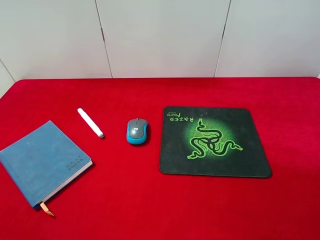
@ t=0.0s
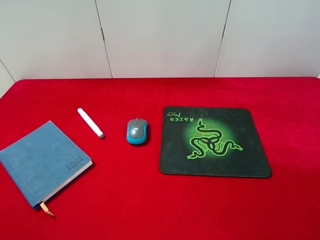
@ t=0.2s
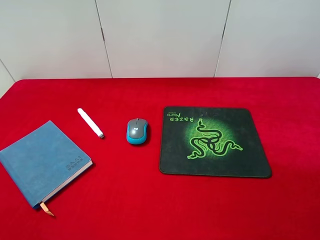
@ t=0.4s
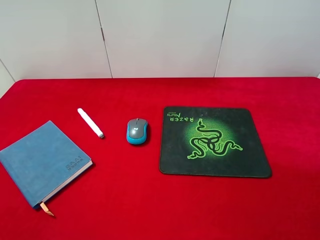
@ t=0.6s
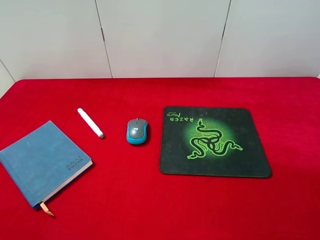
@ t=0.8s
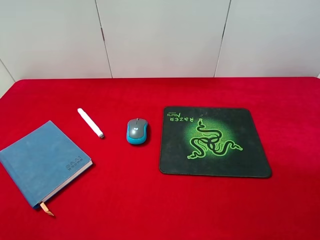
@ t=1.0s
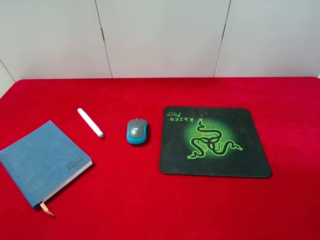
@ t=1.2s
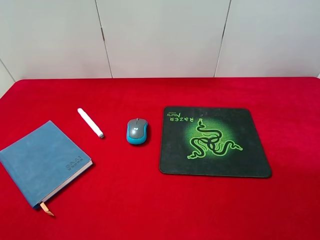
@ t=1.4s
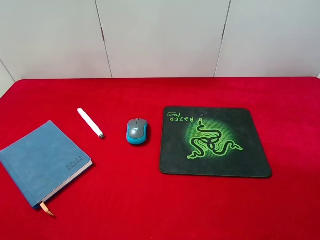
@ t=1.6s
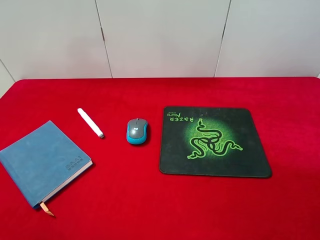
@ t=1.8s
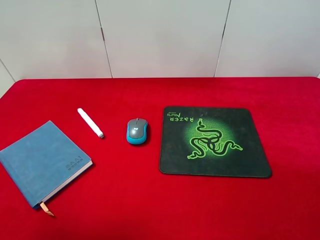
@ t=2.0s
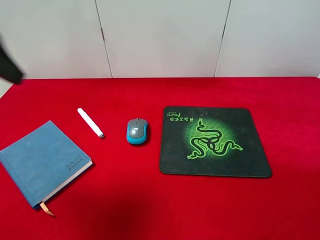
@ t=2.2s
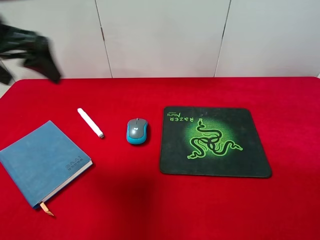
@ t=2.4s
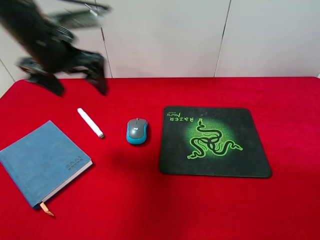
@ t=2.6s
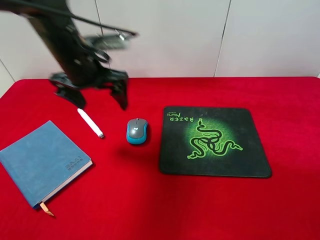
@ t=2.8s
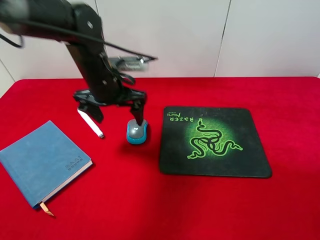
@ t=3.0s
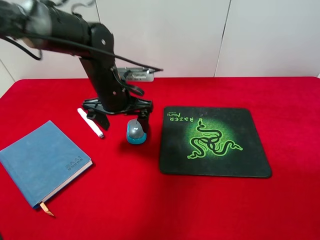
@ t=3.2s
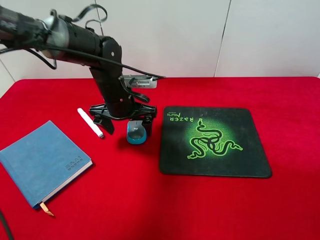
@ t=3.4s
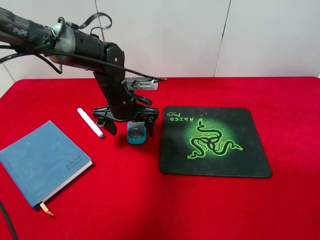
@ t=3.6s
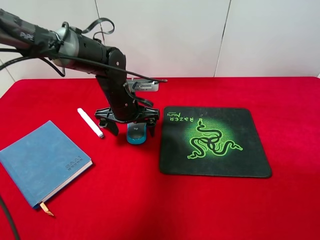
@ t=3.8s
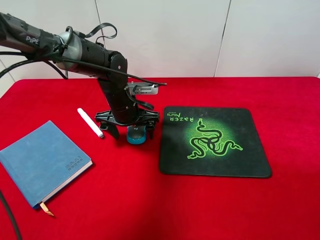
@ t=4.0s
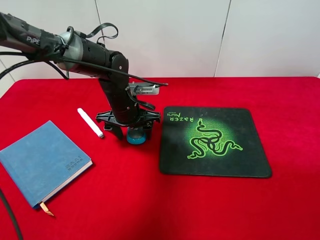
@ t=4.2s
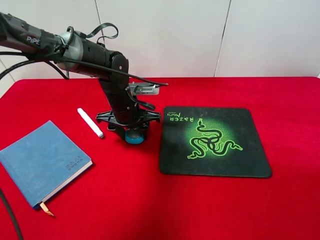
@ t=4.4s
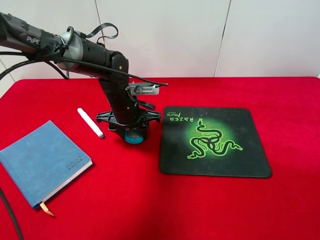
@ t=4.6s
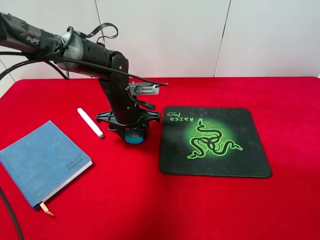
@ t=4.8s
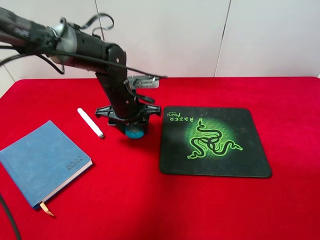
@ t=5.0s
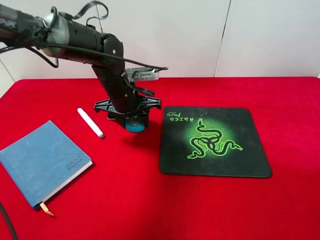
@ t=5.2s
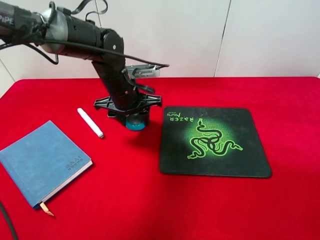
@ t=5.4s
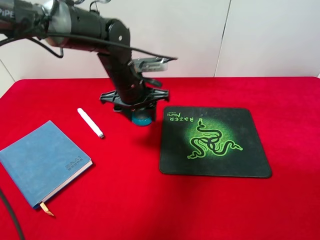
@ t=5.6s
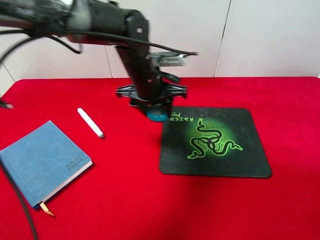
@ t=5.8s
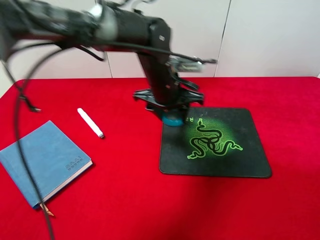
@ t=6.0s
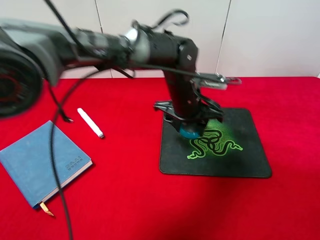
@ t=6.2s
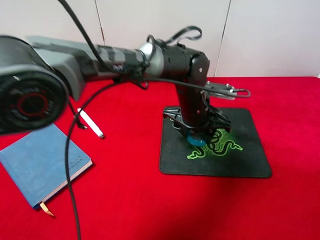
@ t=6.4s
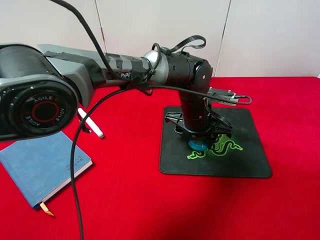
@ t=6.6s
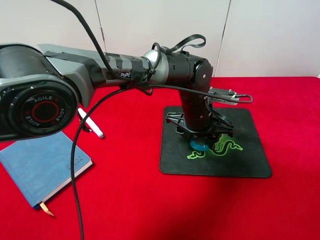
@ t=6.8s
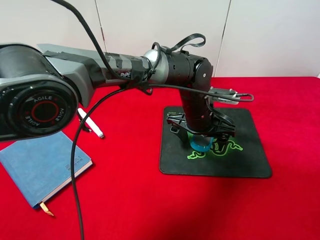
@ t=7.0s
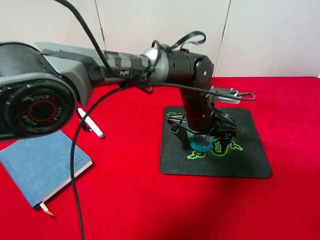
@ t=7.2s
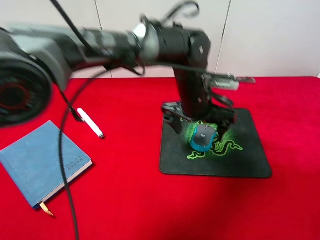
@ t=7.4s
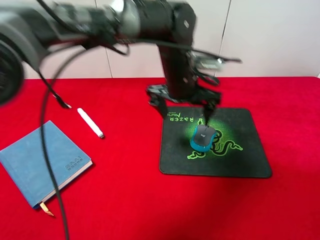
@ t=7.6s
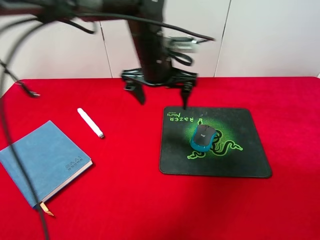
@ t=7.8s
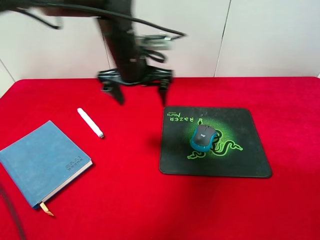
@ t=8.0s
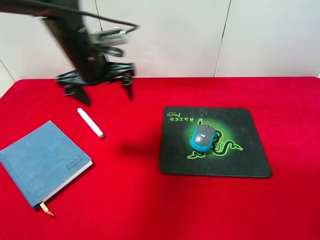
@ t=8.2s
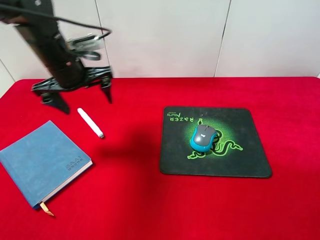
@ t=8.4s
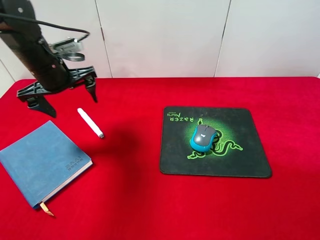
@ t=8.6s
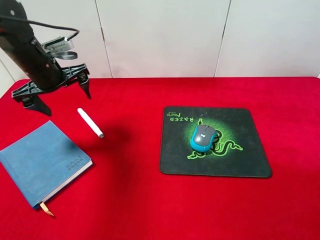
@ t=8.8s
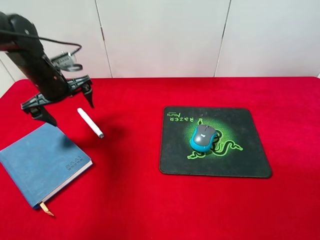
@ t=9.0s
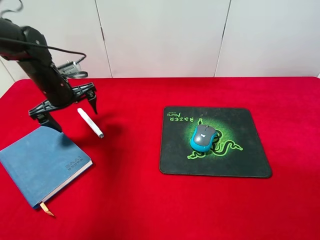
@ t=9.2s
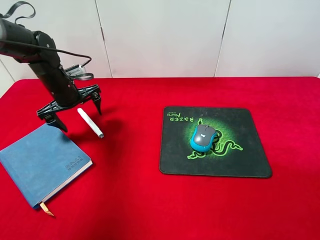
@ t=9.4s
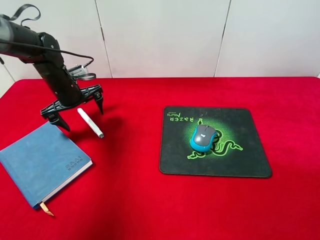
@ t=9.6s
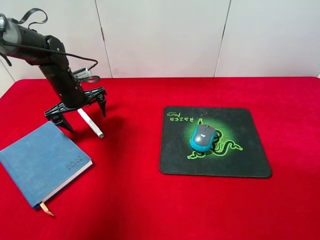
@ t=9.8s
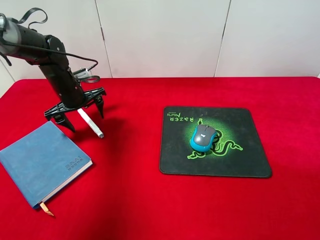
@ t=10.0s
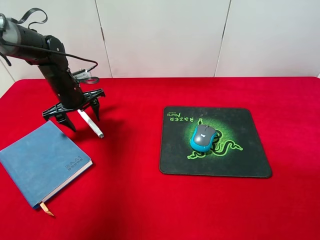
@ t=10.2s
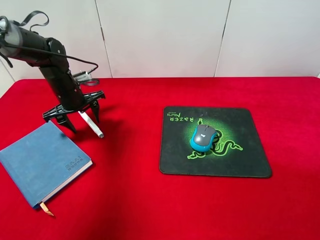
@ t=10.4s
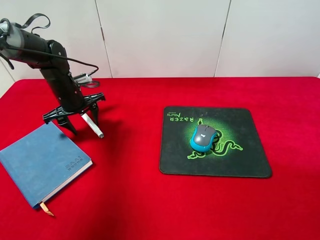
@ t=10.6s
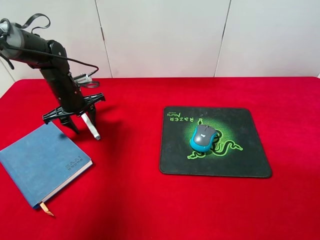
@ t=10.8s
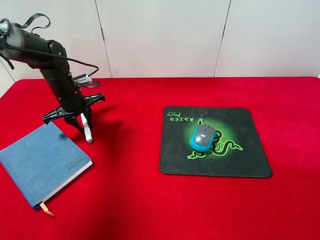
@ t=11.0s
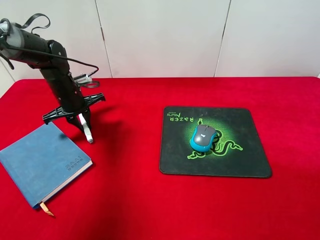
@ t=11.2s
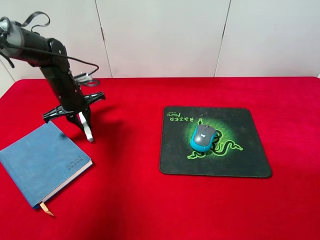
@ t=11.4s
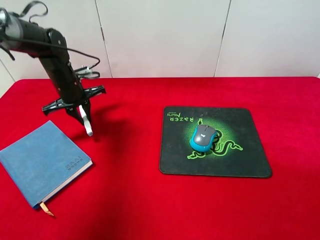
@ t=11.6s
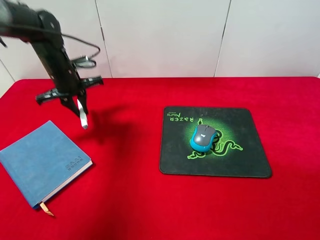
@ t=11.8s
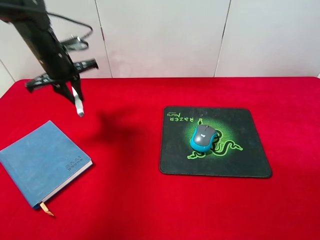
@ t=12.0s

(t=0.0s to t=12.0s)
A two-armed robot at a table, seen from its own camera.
Step, t=0.0s - t=5.4s: Pick up the mouse with left gripper.
Step, t=5.6s - t=7.4s: Place the mouse on the mouse pad with left gripper.
Step, t=7.6s - t=11.6s: Pick up the marker pen with left gripper.
t=1.6s - t=3.0s: The left gripper shifts about 40 cm forward, to the right and downward.
t=3.0s - t=4.4s: The left gripper shifts some 5 cm downward, and closes its fingers.
t=4.4s - t=6.0s: The left gripper heads to the right and upward, covering approximately 10 cm.
t=6.0s - t=7.6s: The left gripper opens up.
t=7.6s - t=9.0s: The left gripper heads to the left, covering about 30 cm.
t=9.0s - t=10.4s: The left gripper moves downward, about 5 cm, and closes its fingers.
t=10.4s - t=12.0s: The left gripper travels upward by about 10 cm, and closes up.

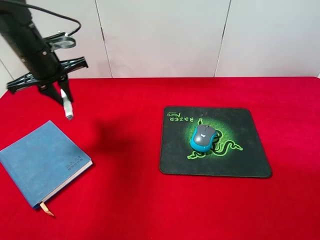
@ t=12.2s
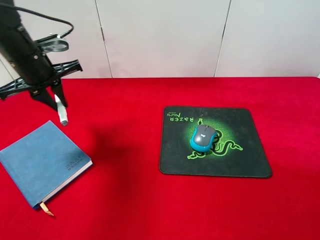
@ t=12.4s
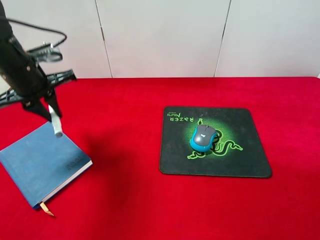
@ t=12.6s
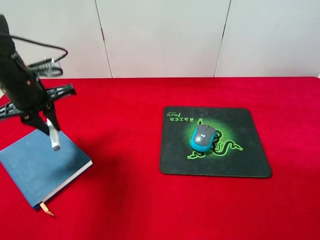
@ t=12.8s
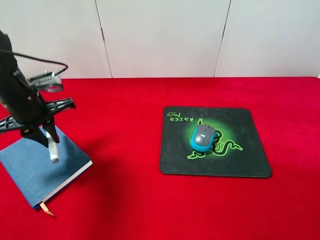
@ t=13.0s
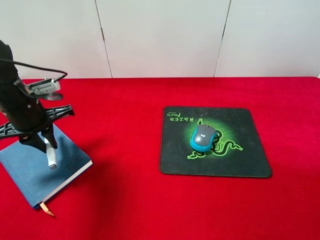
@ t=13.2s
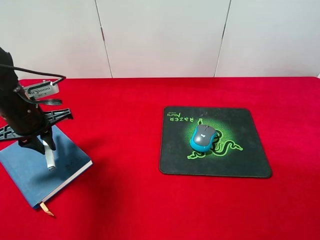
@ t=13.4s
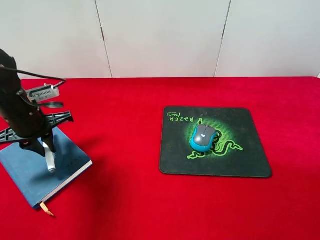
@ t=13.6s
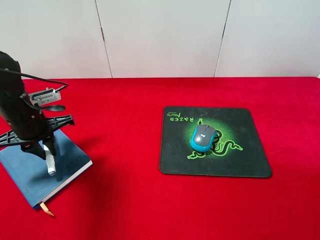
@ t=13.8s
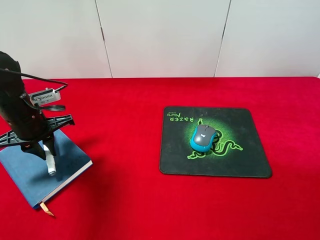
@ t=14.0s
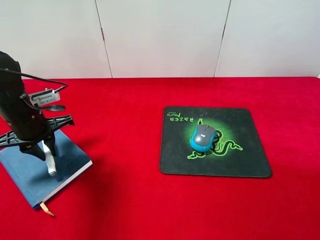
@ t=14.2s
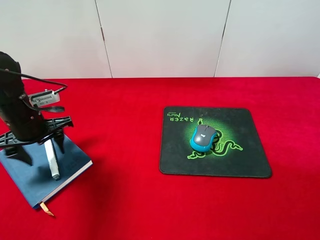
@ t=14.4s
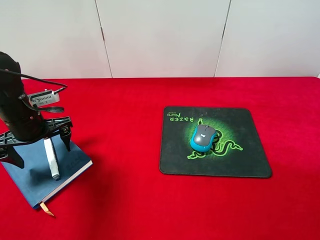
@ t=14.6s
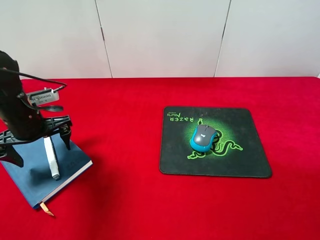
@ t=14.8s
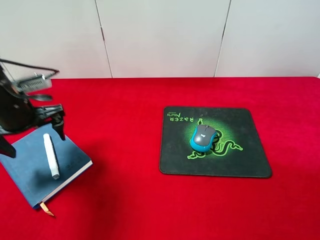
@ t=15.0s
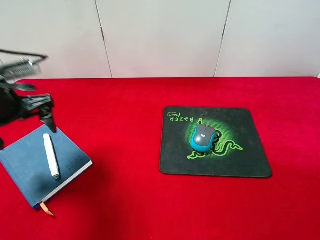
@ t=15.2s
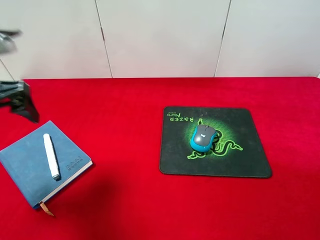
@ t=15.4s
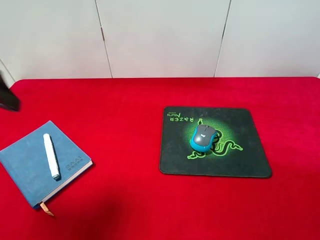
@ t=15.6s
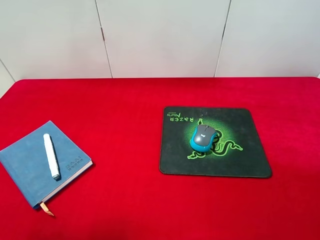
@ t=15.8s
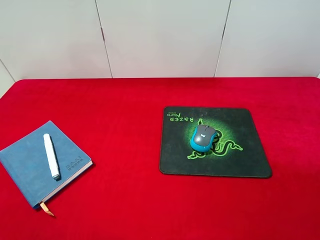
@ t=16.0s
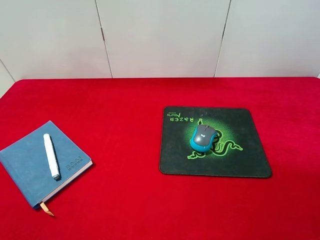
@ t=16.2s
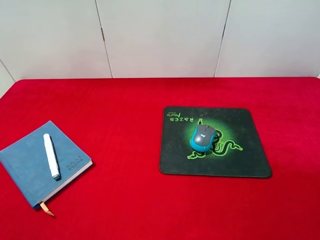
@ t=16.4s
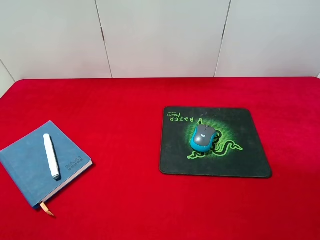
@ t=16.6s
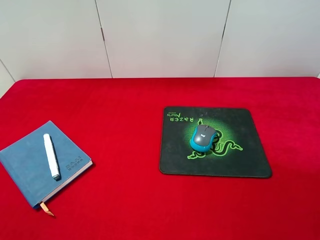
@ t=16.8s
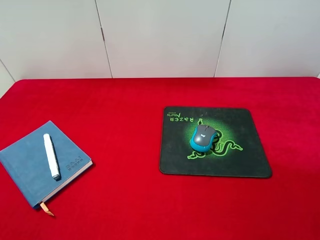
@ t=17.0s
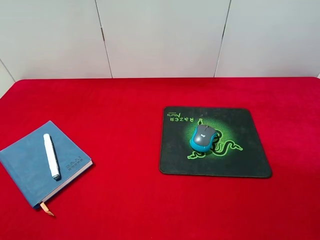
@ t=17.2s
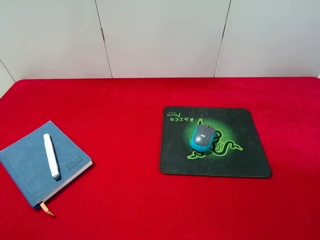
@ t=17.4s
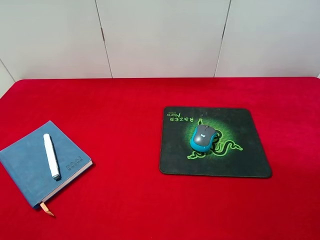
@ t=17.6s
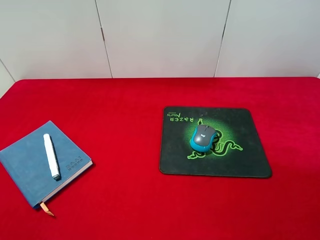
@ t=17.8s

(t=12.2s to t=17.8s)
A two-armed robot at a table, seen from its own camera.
Step, t=12.2s - t=14.8s: Place the marker pen on the notebook with left gripper.
t=12.2s - t=13.6s: The left gripper shifts some 10 cm downward and backward.
t=13.6s - t=15.0s: The left gripper opens its fingers.
t=15.0s - t=16.4s: The left gripper shifts roughly 25 cm backward and upward.
